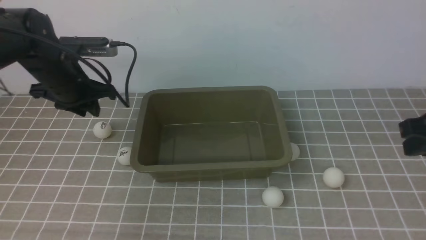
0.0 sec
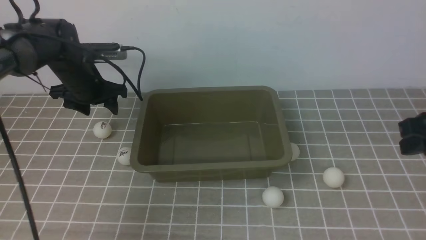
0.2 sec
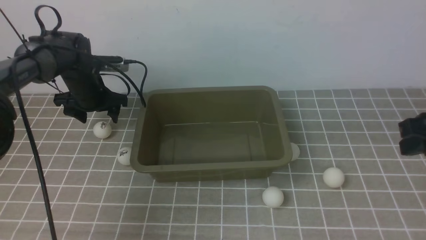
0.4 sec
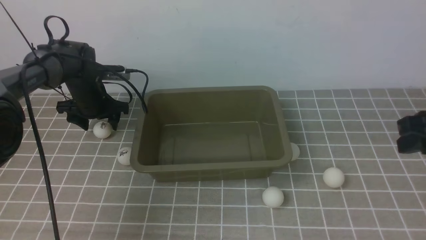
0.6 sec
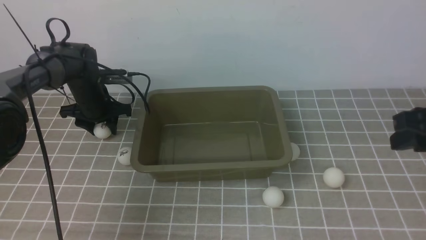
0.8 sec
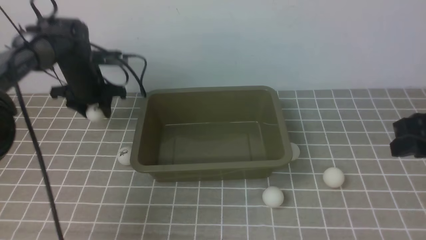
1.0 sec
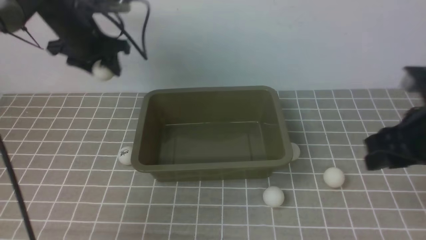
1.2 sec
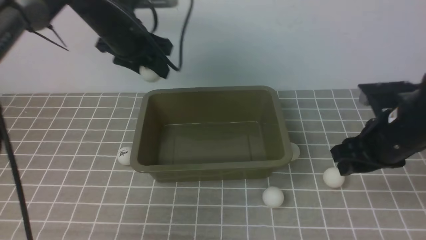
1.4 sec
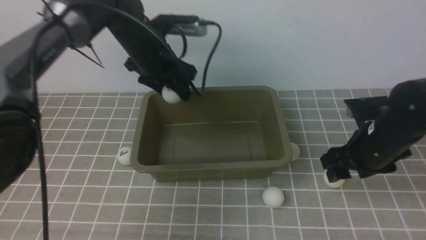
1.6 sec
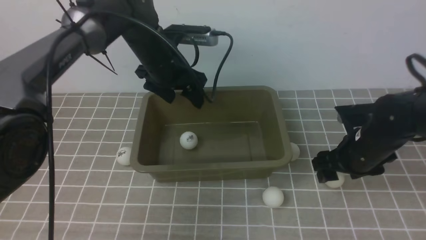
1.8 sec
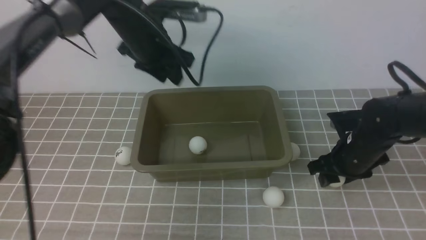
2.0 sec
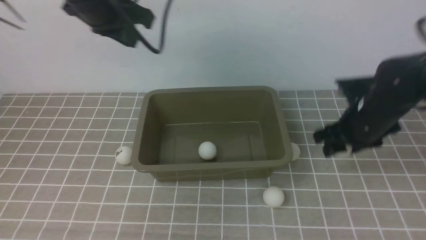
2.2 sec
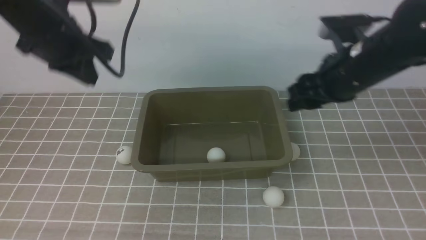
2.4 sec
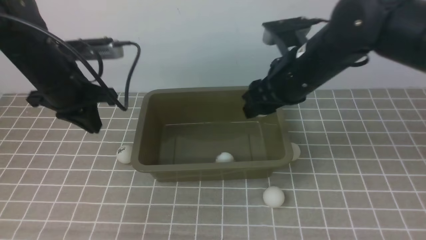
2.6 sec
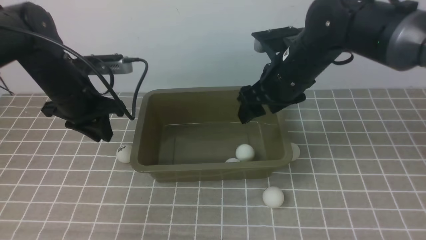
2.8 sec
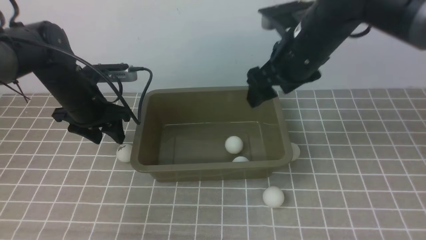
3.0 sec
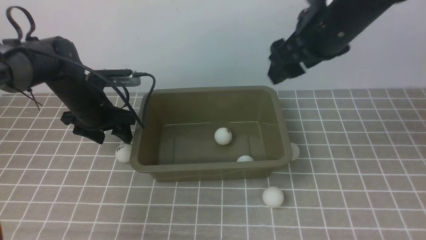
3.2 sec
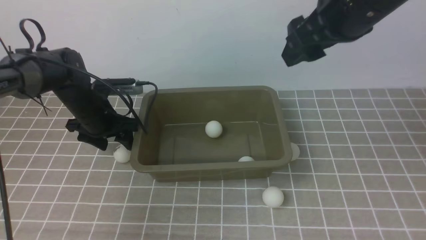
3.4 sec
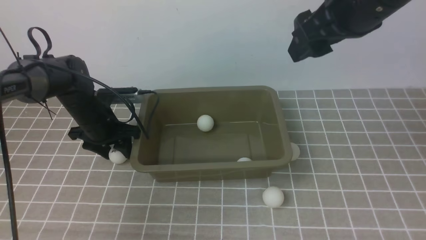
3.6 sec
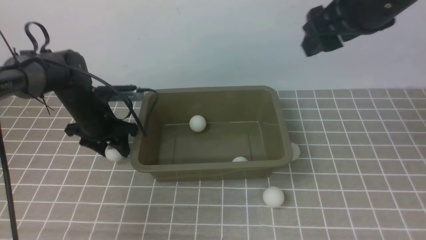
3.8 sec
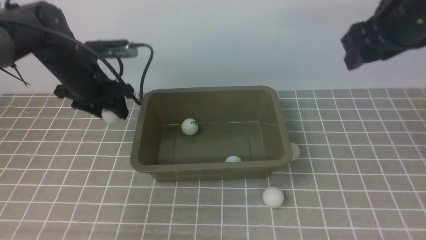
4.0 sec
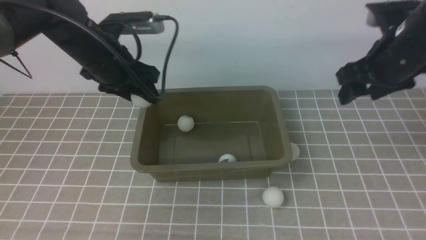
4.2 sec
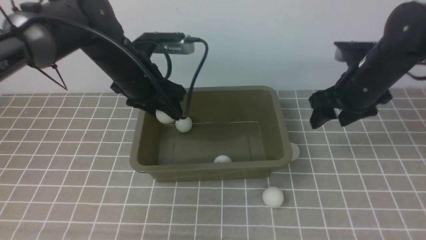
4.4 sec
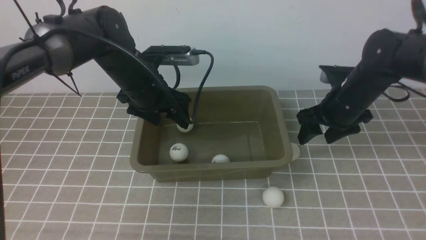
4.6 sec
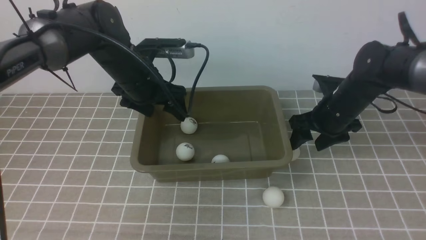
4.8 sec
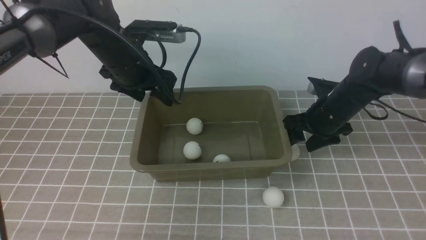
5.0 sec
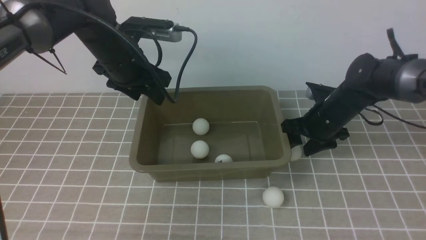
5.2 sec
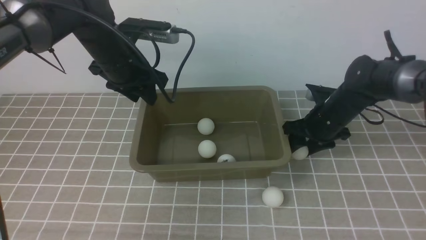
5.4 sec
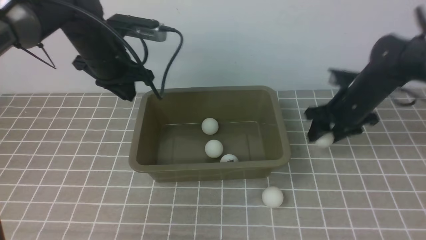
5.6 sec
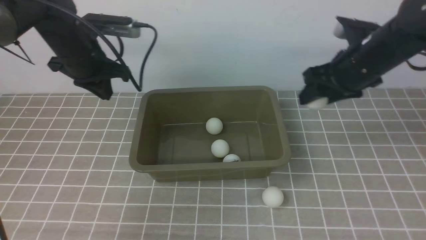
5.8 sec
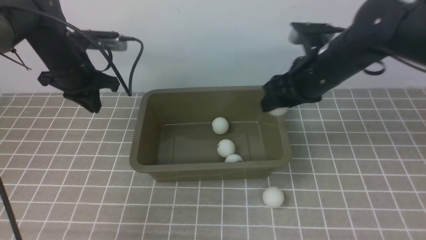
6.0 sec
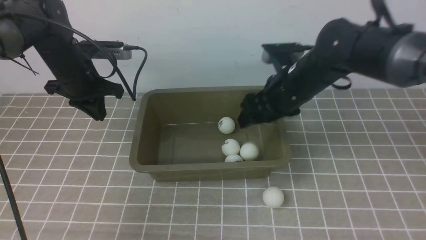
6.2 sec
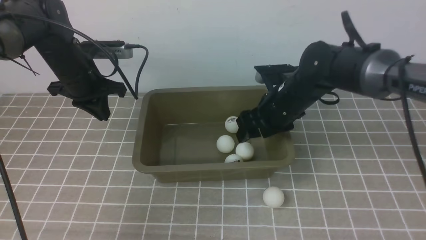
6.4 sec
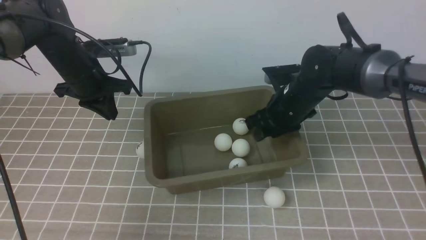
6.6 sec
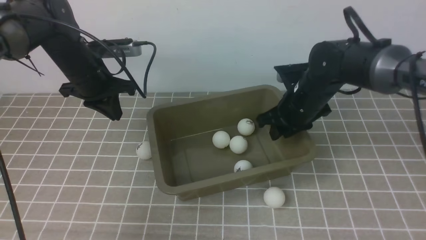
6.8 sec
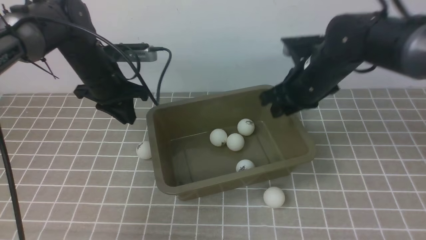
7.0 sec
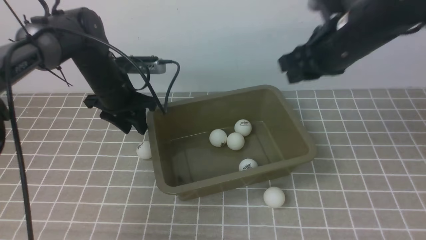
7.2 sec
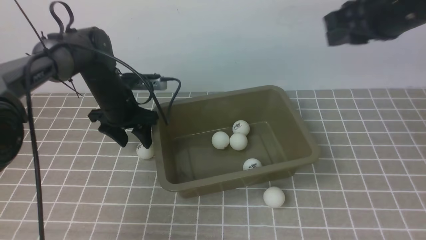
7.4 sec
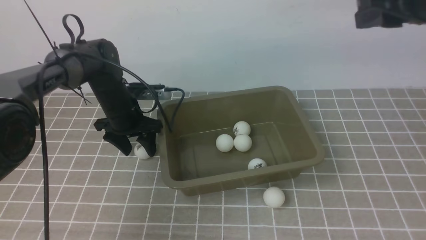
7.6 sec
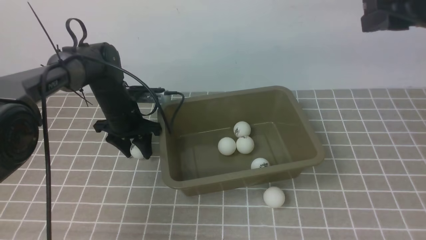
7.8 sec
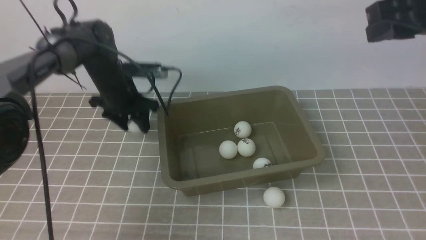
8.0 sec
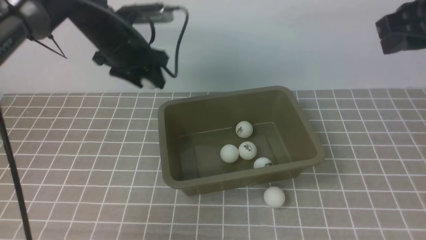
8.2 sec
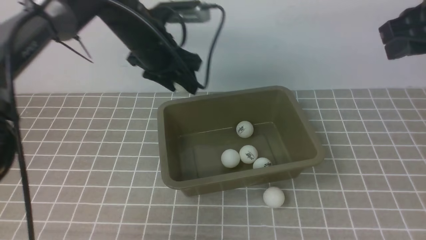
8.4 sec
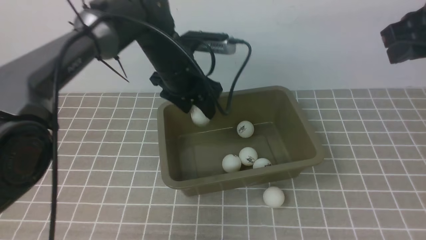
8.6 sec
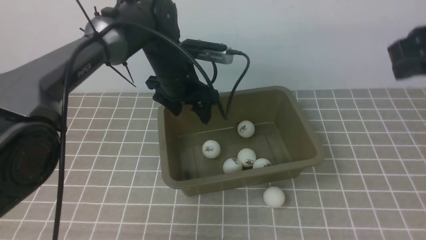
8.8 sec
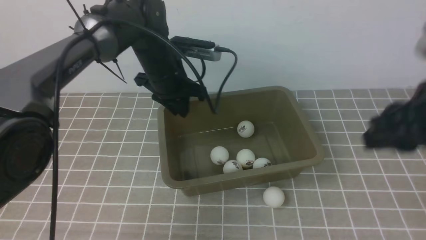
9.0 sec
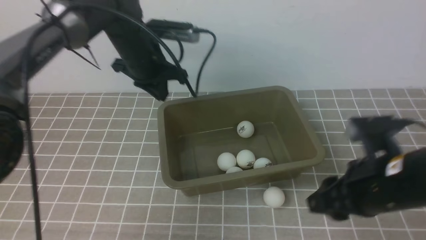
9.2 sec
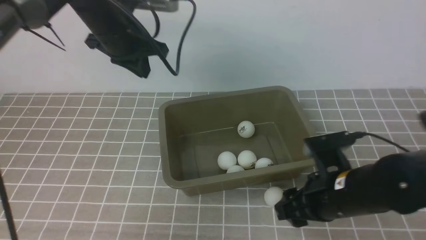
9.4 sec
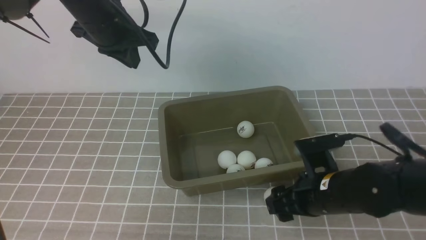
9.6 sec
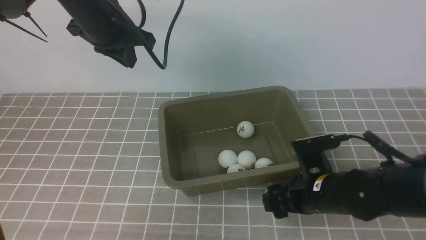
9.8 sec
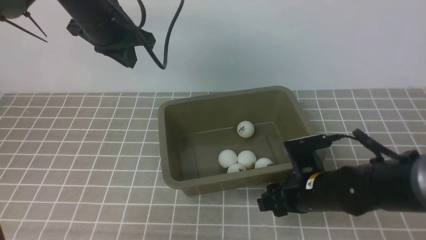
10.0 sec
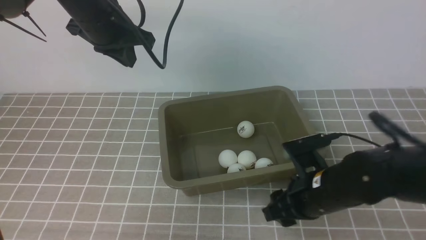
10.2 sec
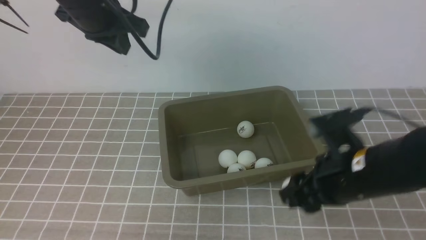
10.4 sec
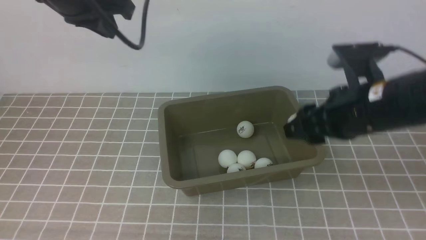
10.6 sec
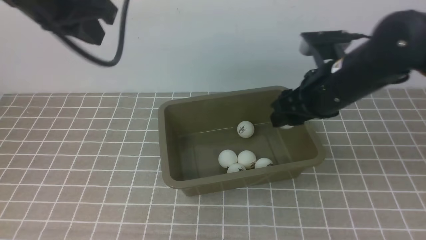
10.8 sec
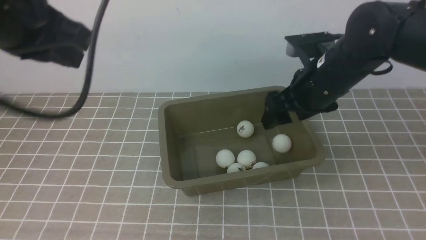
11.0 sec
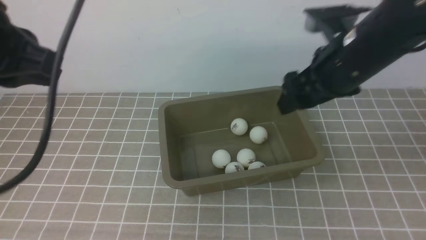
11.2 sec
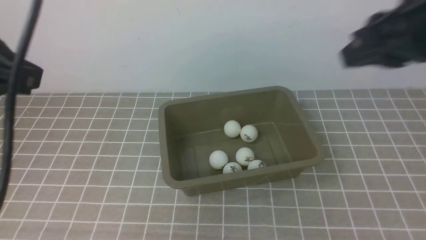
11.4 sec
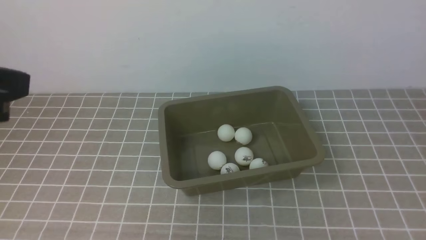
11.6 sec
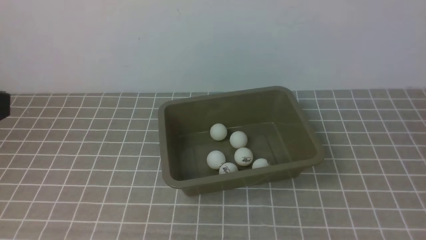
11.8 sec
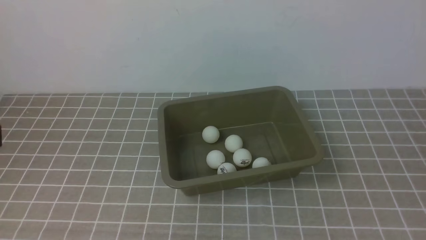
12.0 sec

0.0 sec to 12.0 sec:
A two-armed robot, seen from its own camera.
Step, 1.2 sec to 1.6 sec: use the left arm to put the table tennis ball into the box.
Step, 1.8 sec to 2.0 sec: use the right arm to clamp the table tennis ball closest to it.
Step, 2.2 sec to 2.8 sec: use the right arm to put the table tennis ball into the box.
Step, 3.0 sec to 3.8 sec: use the left arm to clamp the table tennis ball closest to it.
Step, 4.0 sec to 4.6 sec: use the left arm to put the table tennis ball into the box.
Step, 4.8 sec to 5.4 sec: use the right arm to clamp the table tennis ball closest to it.
Step, 5.8 sec to 6.2 sec: use the right arm to put the table tennis ball into the box.
Step, 6.4 sec to 7.8 sec: use the left arm to clamp the table tennis ball closest to it.
Step, 8.0 sec to 8.6 sec: use the left arm to put the table tennis ball into the box.
Step, 9.0 sec to 10.2 sec: use the right arm to clamp the table tennis ball closest to it.
Step, 10.6 sec to 11.0 sec: use the right arm to put the table tennis ball into the box.
0.0 sec to 1.6 sec: The right gripper heads downward, forward and to the left, covering about 15 cm, and opens; the left gripper is displaced to the right by roughly 15 cm, and reaches approximately 10 cm downward, then returns.
1.6 sec to 3.0 sec: The right gripper moves upward and to the left, roughly 20 cm. Meanwhile the left gripper shifts roughly 15 cm to the left and downward, and closes and opens again.
3.0 sec to 4.4 sec: The left gripper moves to the right and upward, some 10 cm, while the right gripper shifts roughly 15 cm to the right and downward.
4.4 sec to 6.0 sec: Both grippers travel together to the left, about 10 cm. The right gripper goes downward and returns, some 10 cm each way, while the left gripper closes its fingers.
6.0 sec to 7.6 sec: The left gripper heads downward and to the right, covering approximately 10 cm, and opens its fingers. Meanwhile the right gripper is displaced upward, backward and to the right by some 20 cm, and closes its fingers.
7.6 sec to 9.0 sec: The right gripper heads downward and backward, covering approximately 10 cm; the left gripper travels upward and to the right by some 15 cm, and closes its fingers.
9.0 sec to 10.4 sec: The left gripper is displaced upward and to the left by approximately 15 cm, and closes; the right gripper shifts some 10 cm downward and to the left.
10.4 sec to 12.0 sec: The left gripper is displaced backward by approximately 30 cm. Meanwhile the right gripper is displaced backward, to the right and upward by about 30 cm, and closes its fingers.

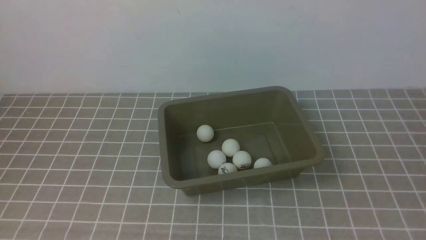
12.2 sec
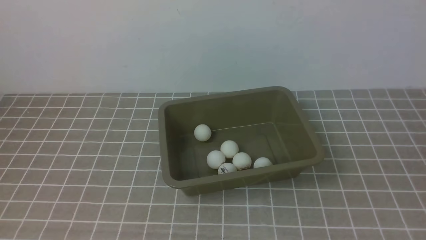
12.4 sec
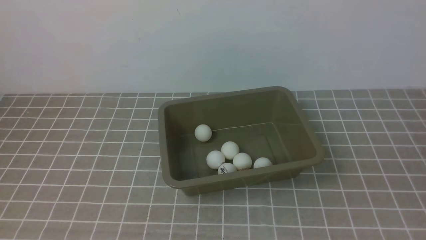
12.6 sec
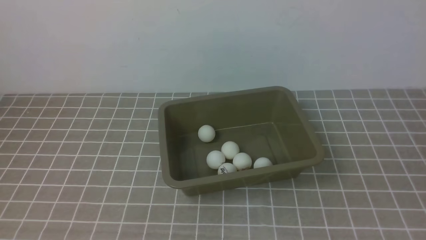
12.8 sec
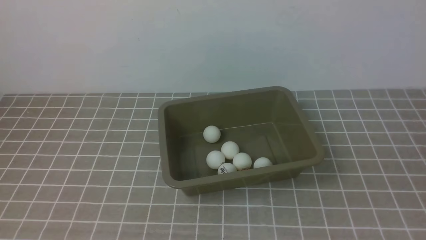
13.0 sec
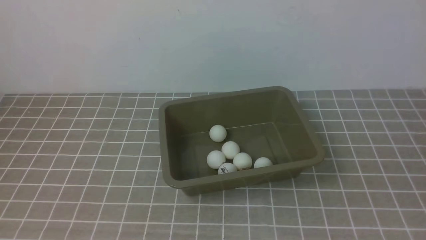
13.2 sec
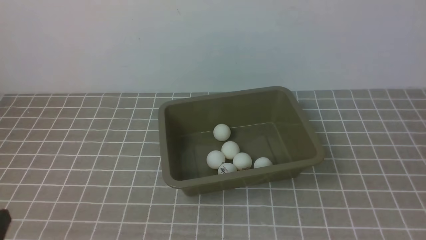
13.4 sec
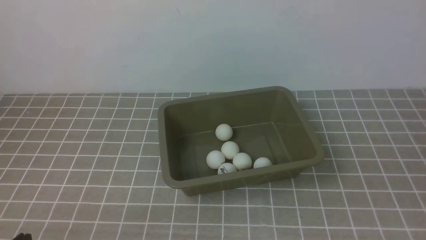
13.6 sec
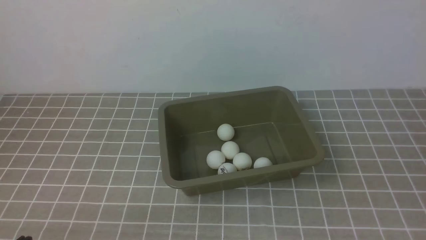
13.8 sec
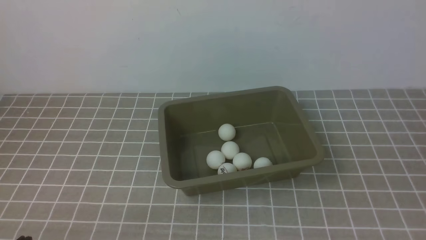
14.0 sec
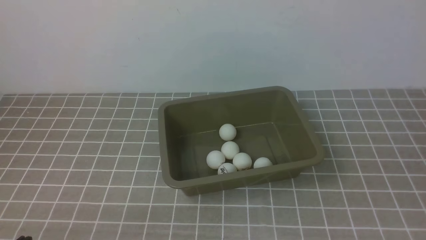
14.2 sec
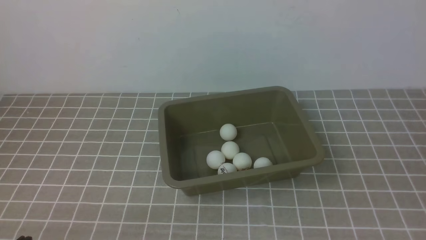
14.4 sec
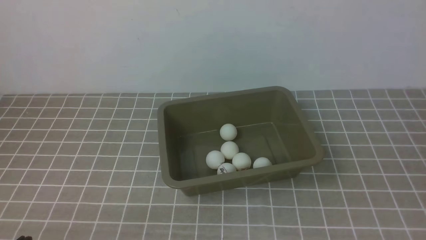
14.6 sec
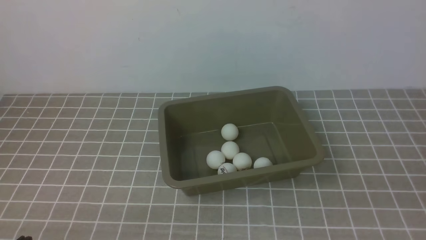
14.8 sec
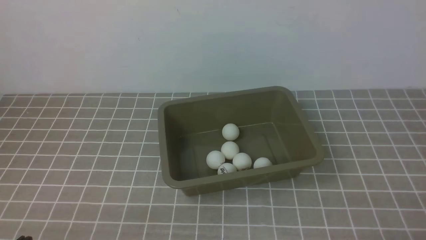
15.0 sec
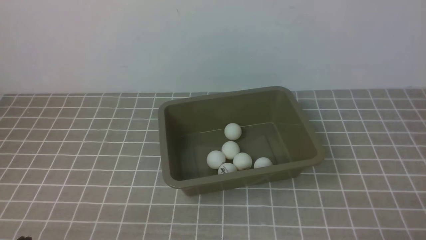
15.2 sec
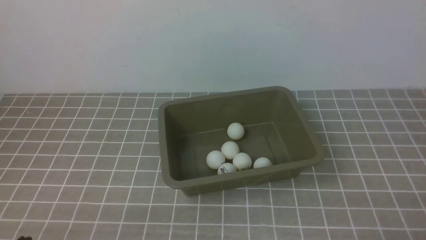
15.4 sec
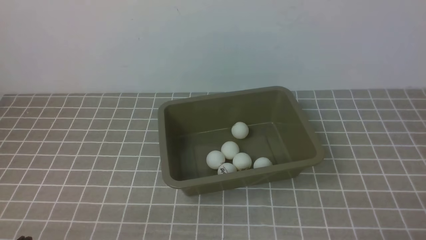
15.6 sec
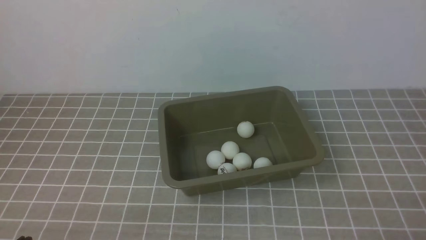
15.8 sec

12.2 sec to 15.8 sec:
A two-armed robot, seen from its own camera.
12.2 sec to 14.0 sec: The left gripper moves downward, roughly 20 cm.
